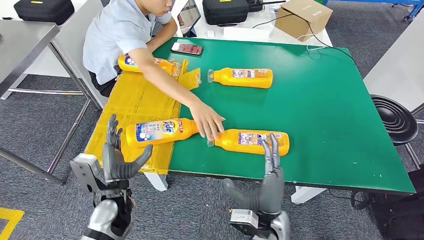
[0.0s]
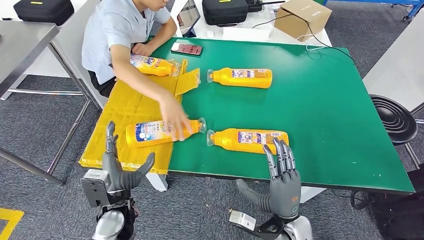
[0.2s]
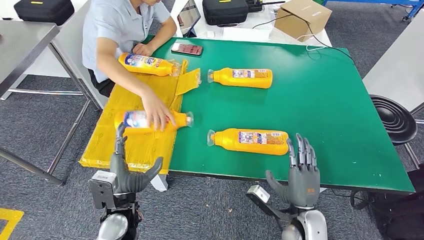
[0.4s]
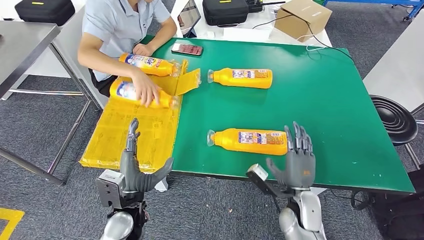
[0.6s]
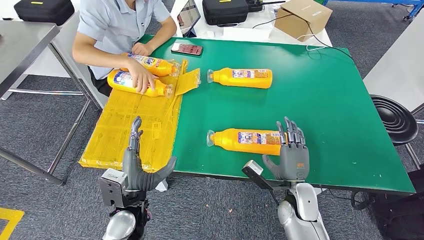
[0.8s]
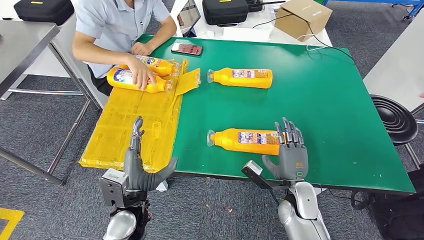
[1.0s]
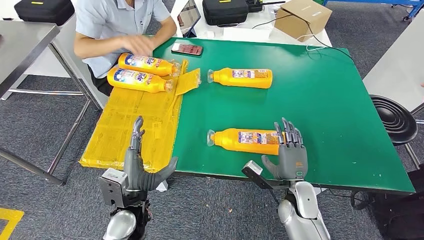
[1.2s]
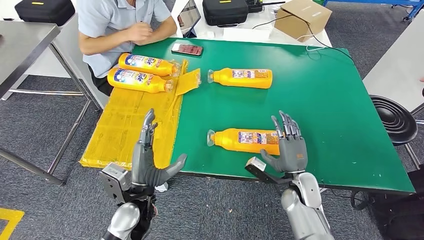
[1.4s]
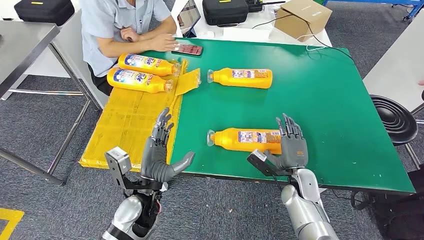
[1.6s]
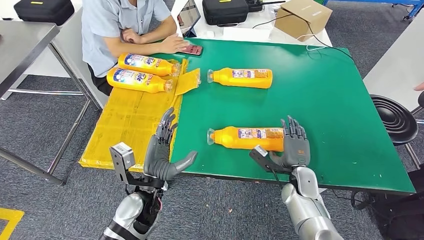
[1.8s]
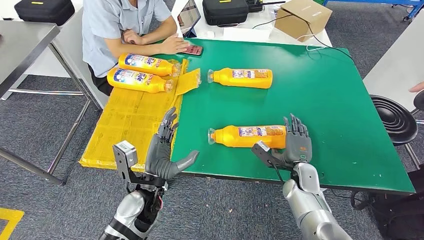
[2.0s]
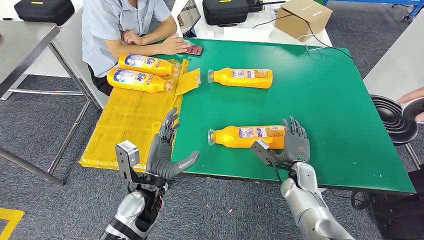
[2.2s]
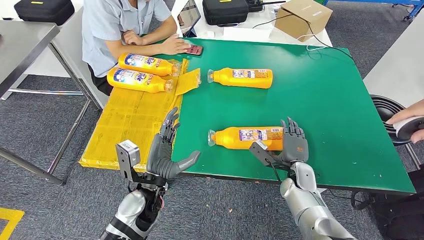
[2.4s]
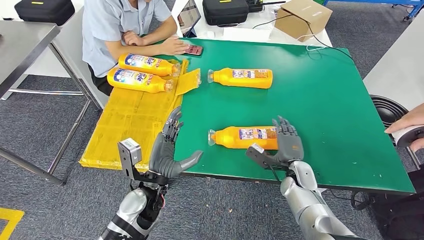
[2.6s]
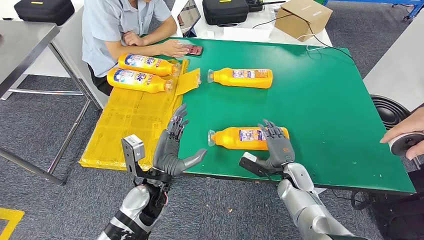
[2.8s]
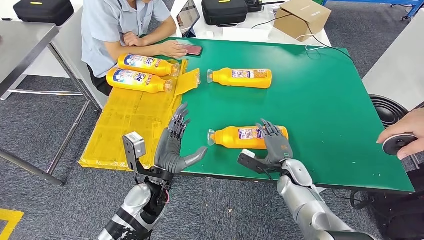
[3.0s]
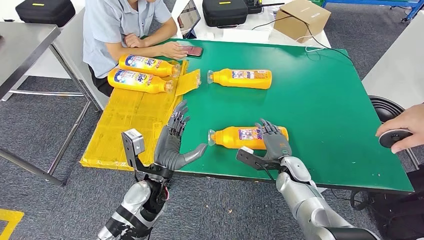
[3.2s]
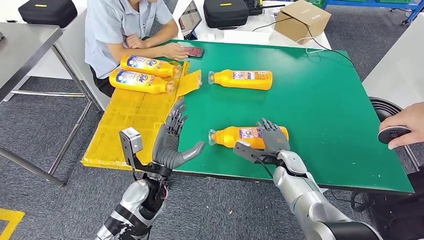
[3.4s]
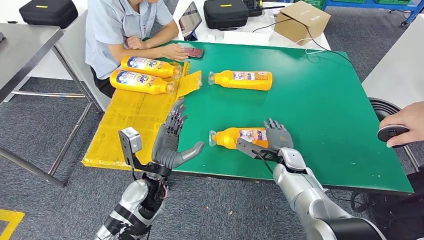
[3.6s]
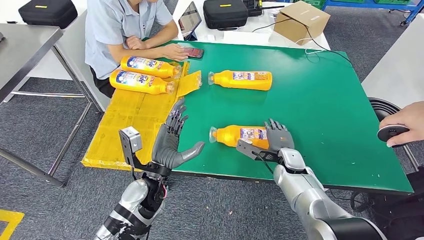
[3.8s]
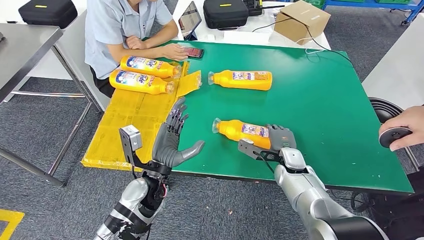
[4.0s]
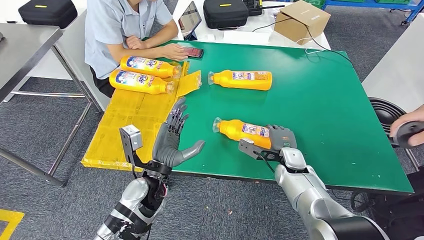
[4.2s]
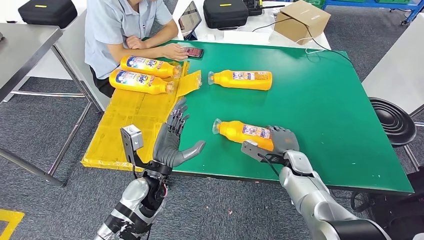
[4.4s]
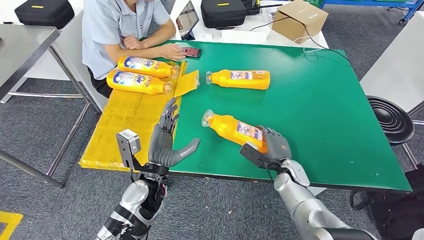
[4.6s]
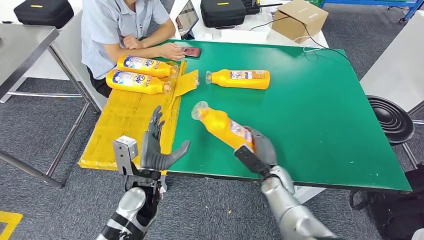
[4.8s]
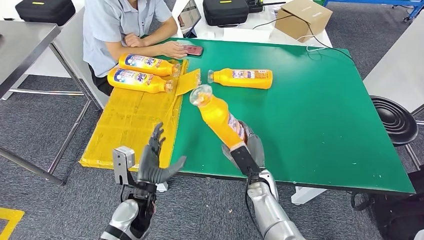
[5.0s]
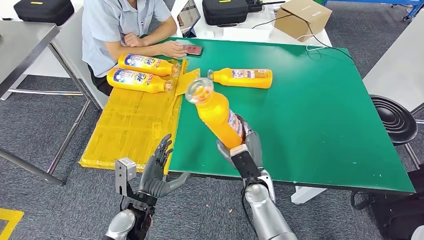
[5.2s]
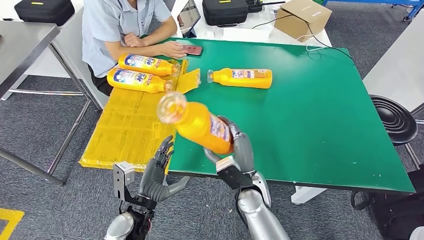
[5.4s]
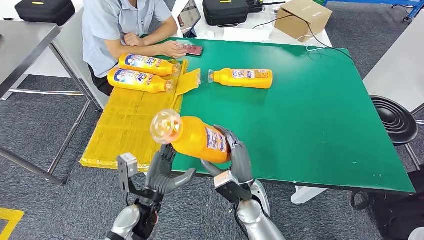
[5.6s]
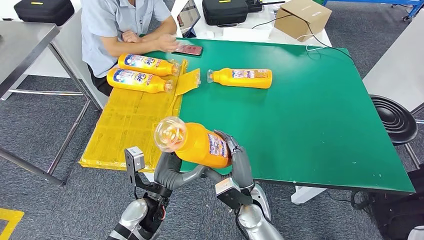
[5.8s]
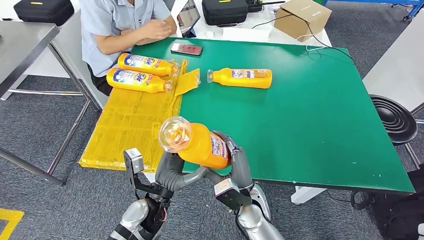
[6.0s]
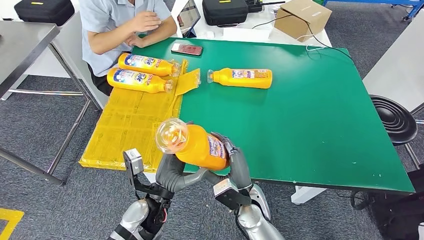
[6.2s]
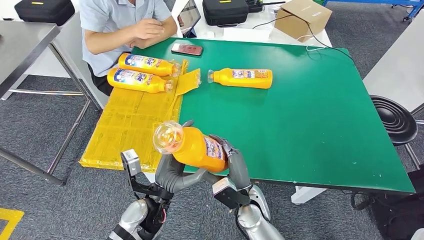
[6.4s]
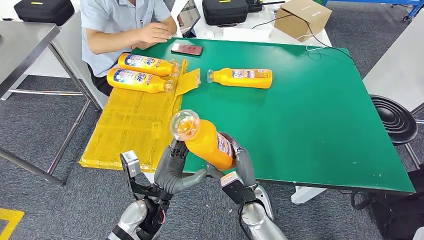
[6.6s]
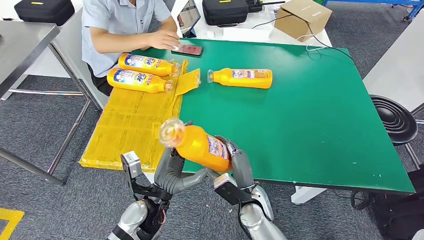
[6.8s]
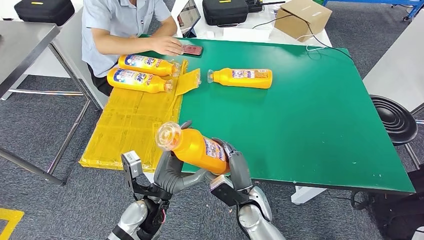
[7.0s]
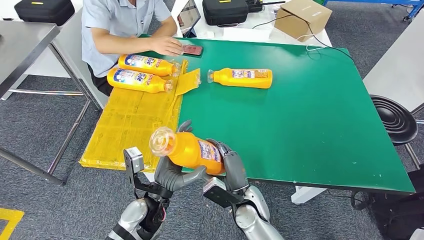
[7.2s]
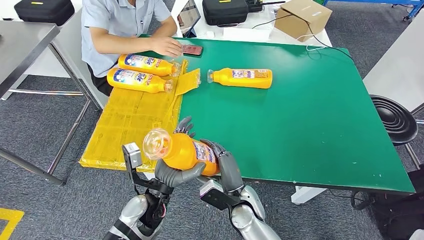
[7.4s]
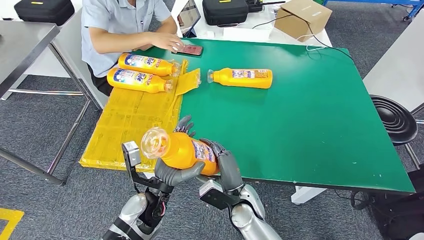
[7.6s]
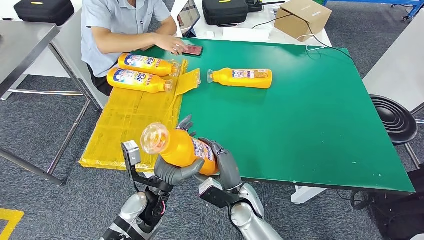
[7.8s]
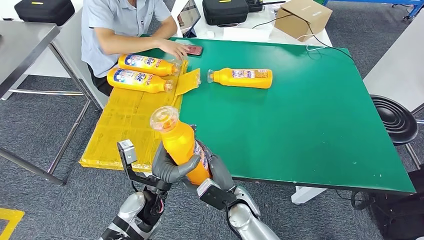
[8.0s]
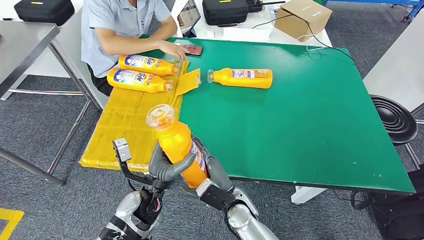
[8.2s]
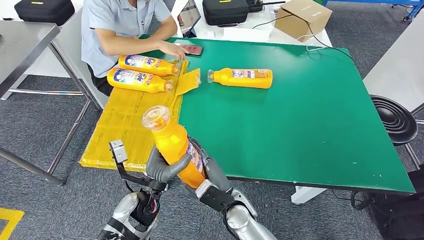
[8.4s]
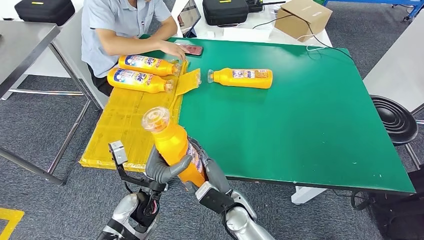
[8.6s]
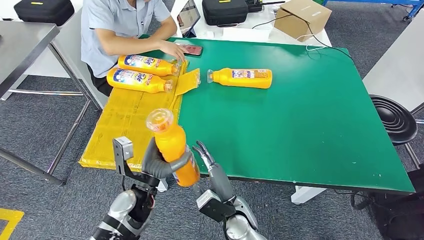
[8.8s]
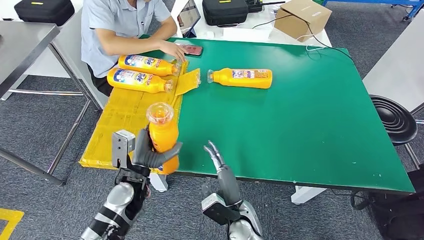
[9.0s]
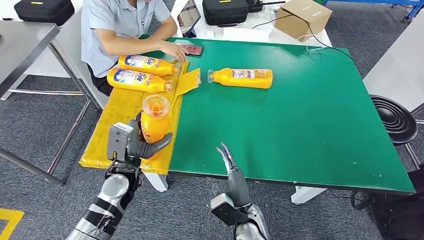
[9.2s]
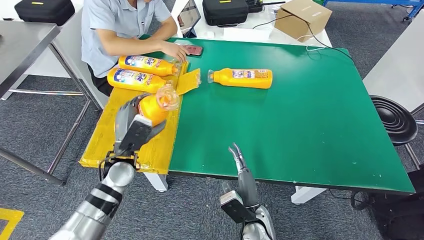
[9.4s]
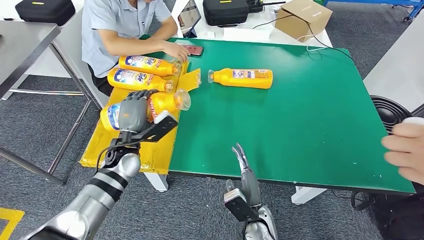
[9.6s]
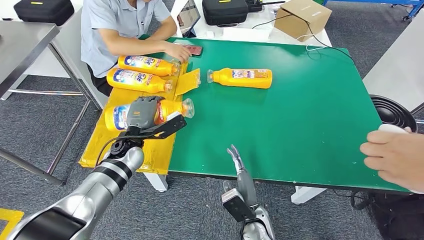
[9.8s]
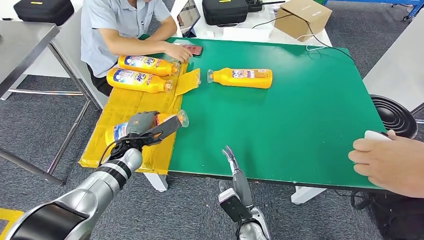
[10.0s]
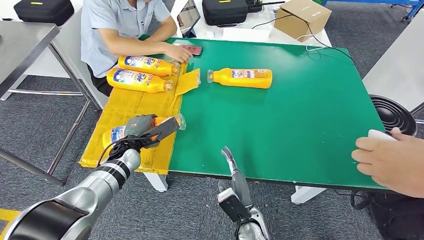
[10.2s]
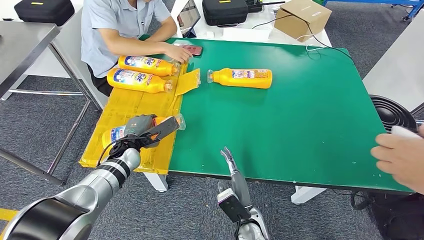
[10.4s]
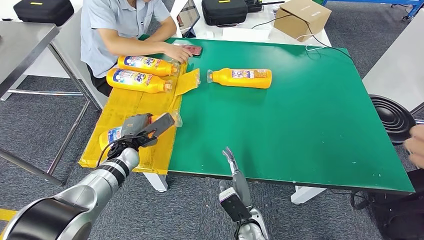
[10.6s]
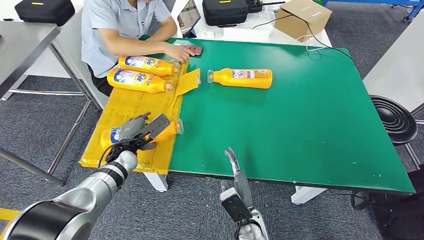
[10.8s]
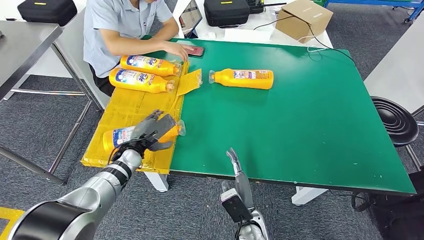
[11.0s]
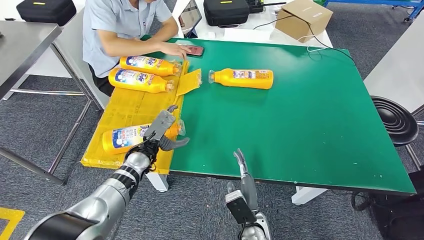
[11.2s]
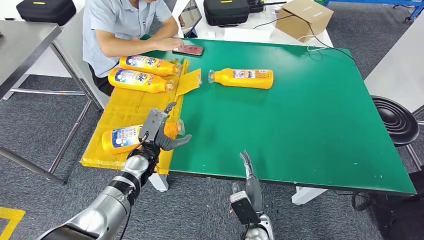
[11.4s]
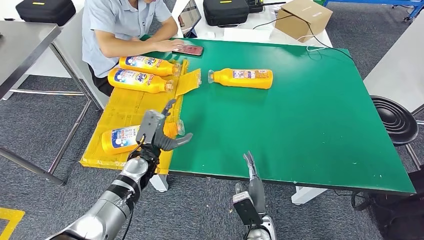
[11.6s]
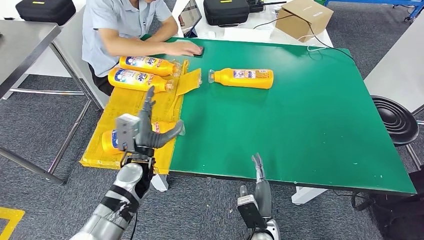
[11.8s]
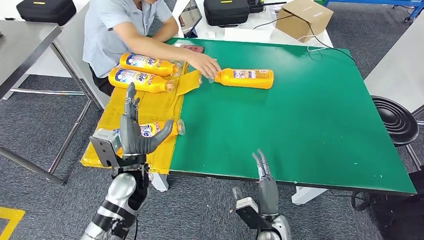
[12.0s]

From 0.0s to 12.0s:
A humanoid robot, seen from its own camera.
Step, from 0.0s to 6.6s: Pick up the fast-moving consumer goods bottle from the table.
Step, from 6.8s to 11.8s: Flip the fast-moving consumer goods bottle to the front side.
From 6.0s to 7.6s: There are only small adjustments of the hands.
From 7.6s to 9.0s: The left hand shifts about 5 cm to the left.
From 9.0s to 10.4s: The left hand moves forward, approximately 10 cm.

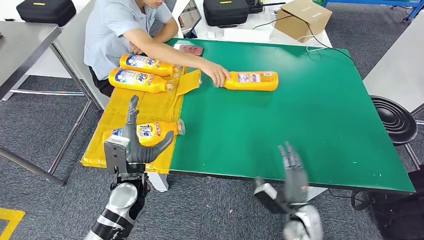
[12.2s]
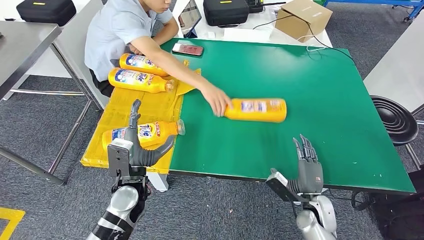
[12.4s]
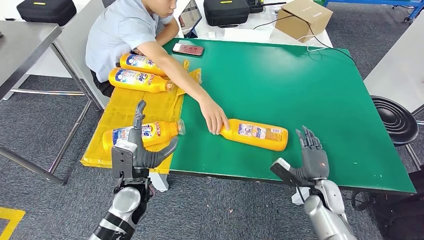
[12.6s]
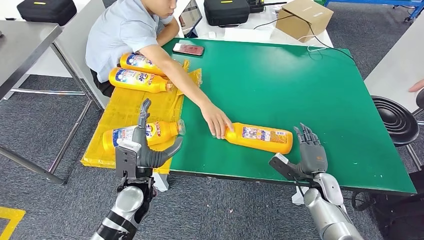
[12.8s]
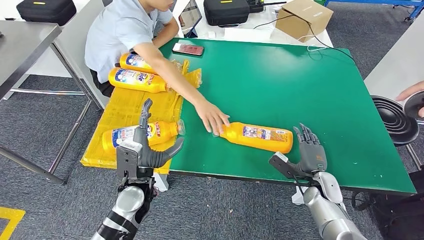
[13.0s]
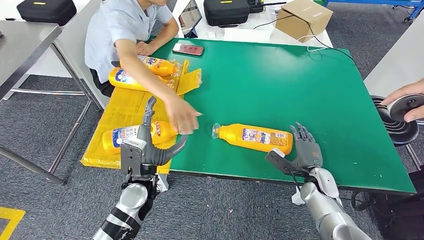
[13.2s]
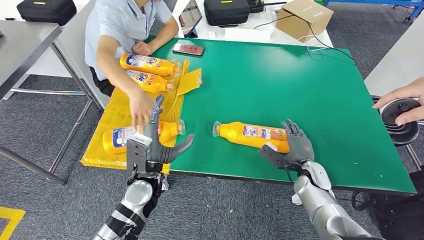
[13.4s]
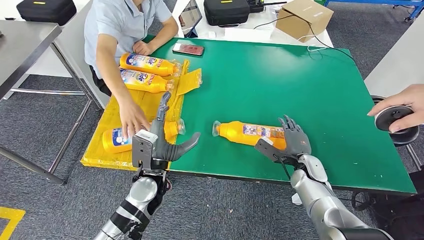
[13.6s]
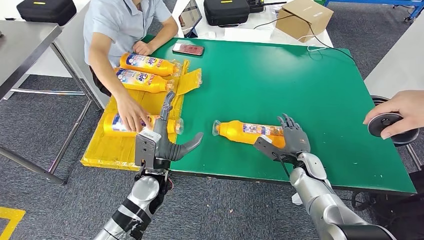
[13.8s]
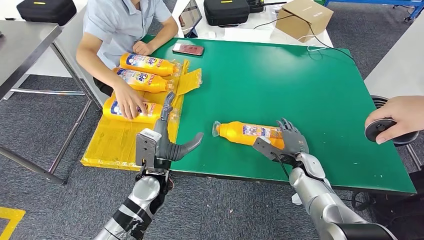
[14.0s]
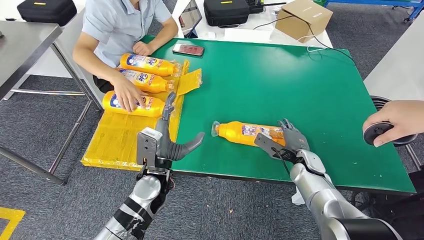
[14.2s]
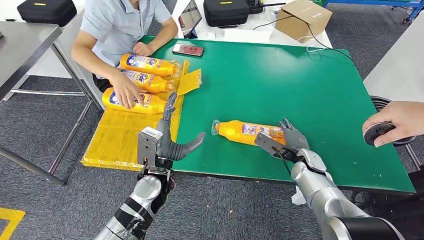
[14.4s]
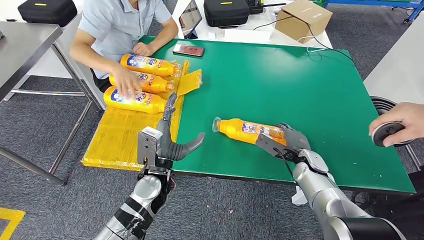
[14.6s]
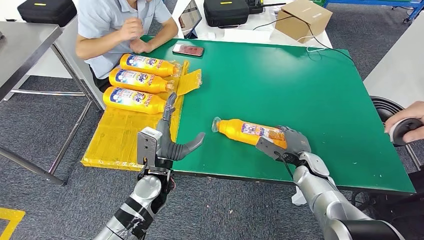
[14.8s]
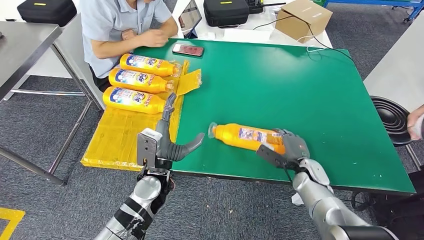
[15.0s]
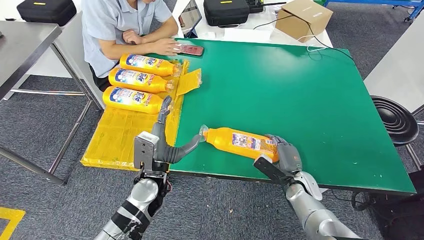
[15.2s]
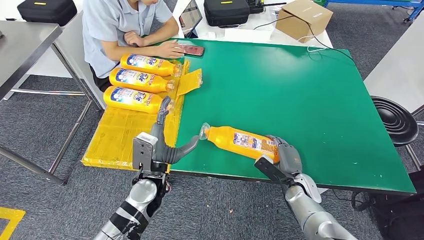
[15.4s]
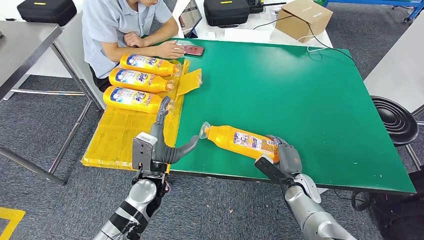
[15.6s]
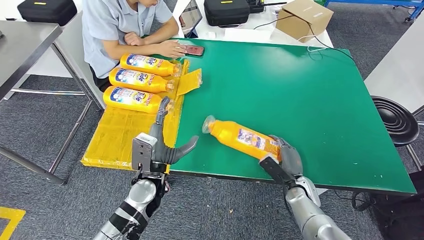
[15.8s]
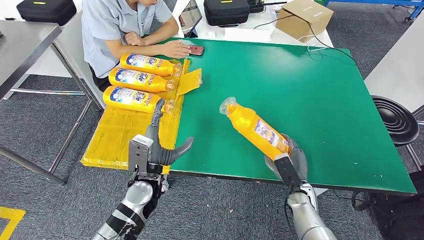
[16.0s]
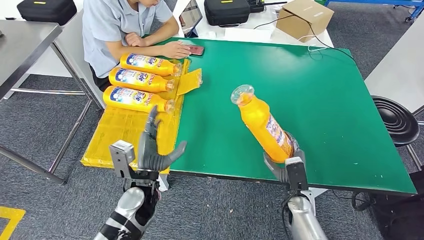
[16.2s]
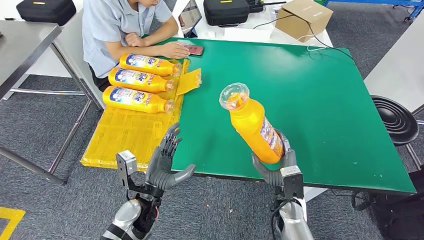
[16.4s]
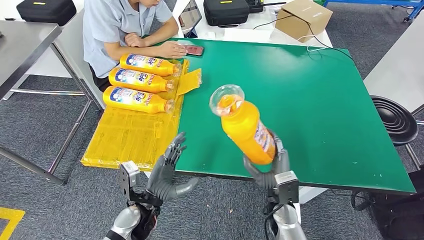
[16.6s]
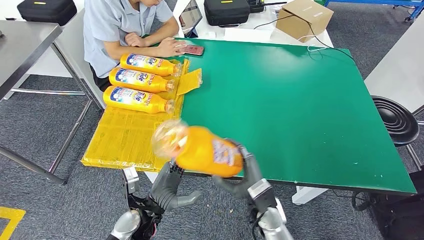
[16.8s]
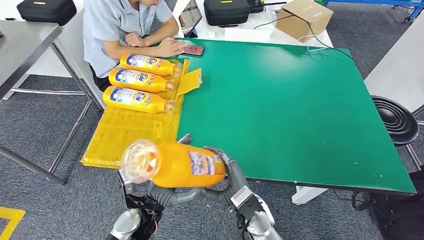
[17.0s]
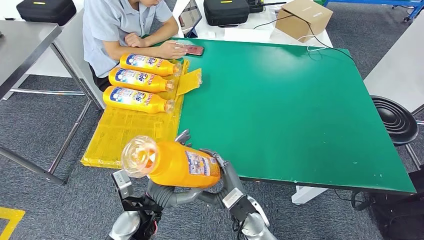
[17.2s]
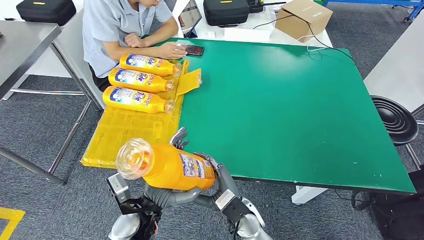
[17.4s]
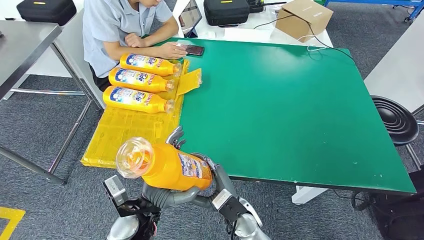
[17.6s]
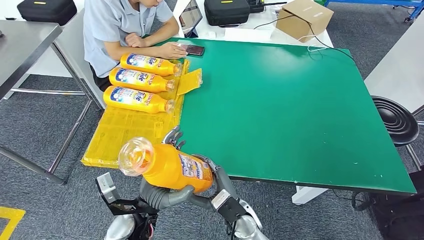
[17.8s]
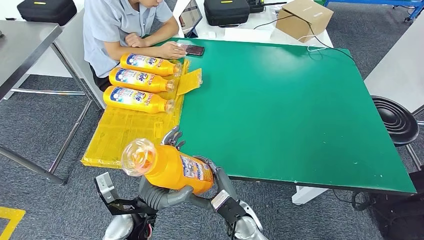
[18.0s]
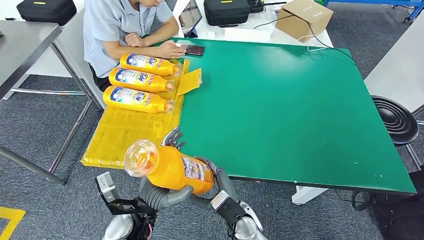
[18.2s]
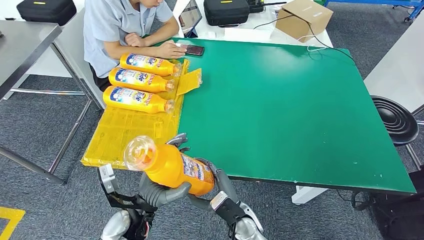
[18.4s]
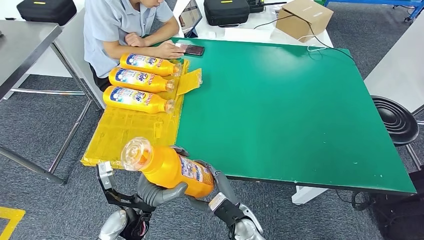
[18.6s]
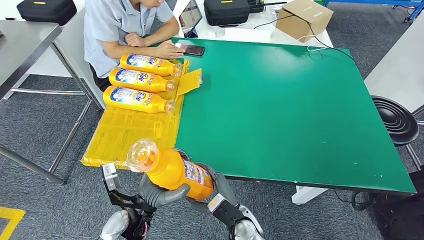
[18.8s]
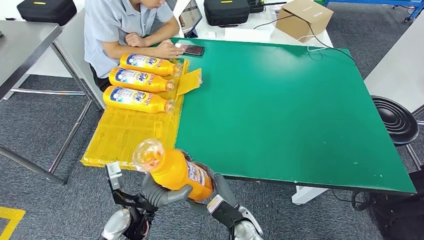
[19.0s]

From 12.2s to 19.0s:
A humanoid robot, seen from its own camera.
Step, from 12.2s to 16.2s: Pick up the fast-moving consumer goods bottle from the table.
From 13.6s to 15.0s: The hands make only small movements.
From 15.0s to 16.2s: The right hand is displaced backward and to the left by some 10 cm.
From 16.2s to 17.6s: The right hand moves to the left, roughly 15 cm; the left hand moves backward, some 5 cm.
From 17.6s to 19.0s: The hands move only a little.
